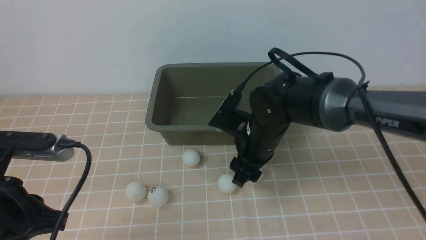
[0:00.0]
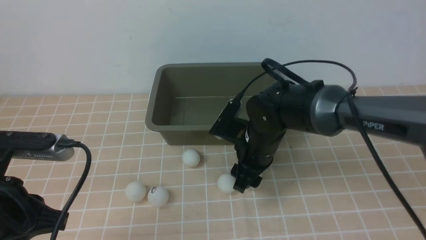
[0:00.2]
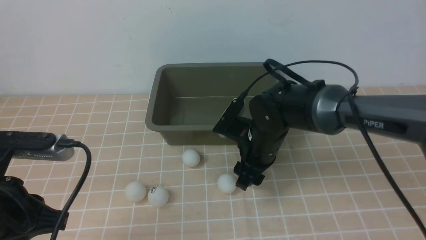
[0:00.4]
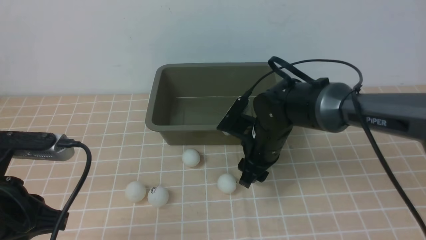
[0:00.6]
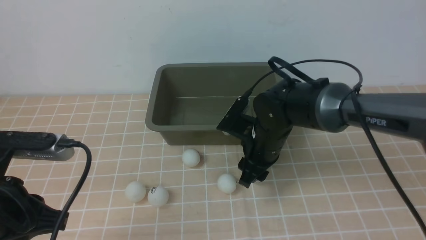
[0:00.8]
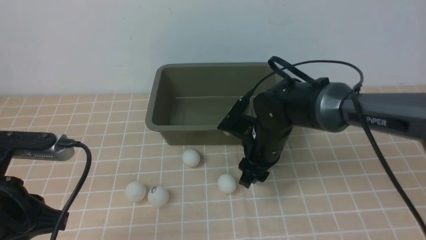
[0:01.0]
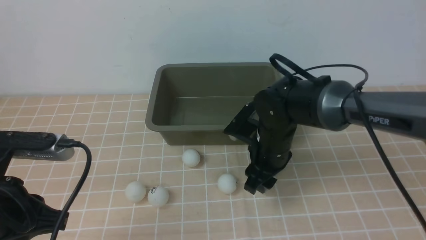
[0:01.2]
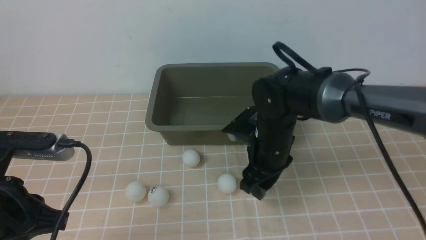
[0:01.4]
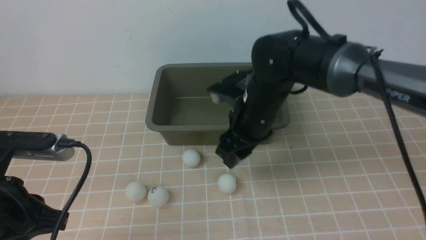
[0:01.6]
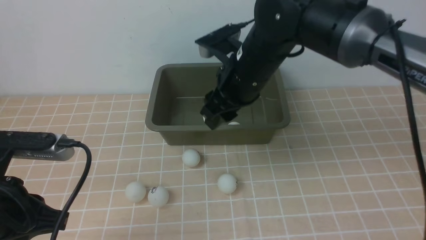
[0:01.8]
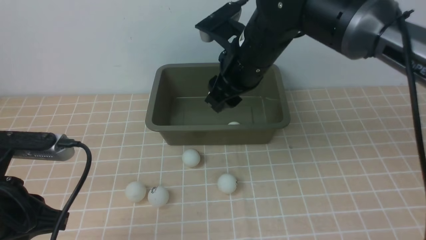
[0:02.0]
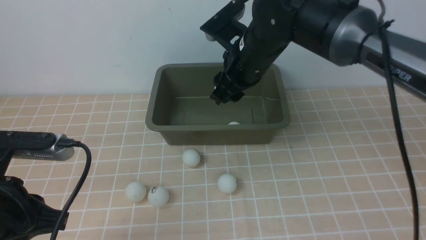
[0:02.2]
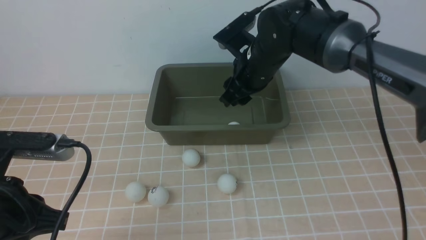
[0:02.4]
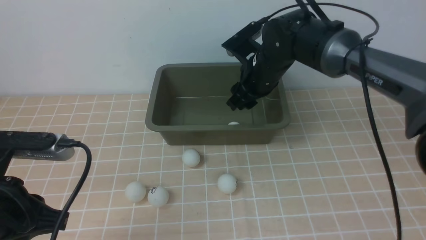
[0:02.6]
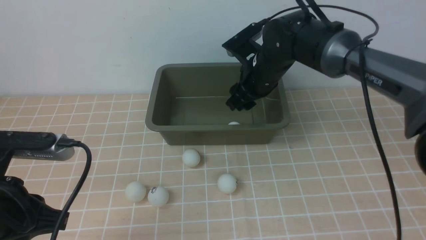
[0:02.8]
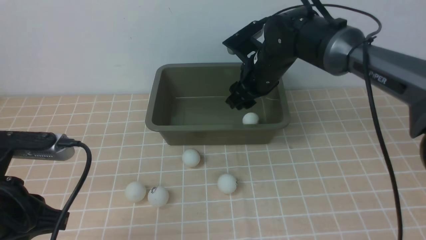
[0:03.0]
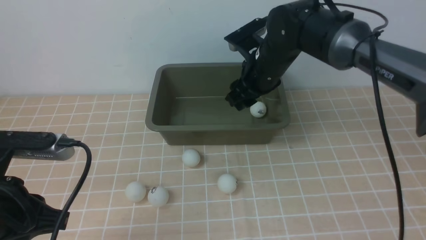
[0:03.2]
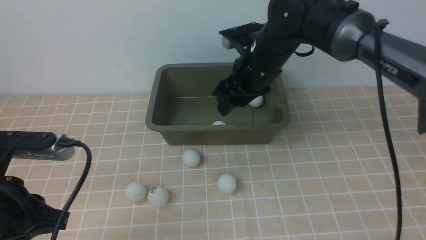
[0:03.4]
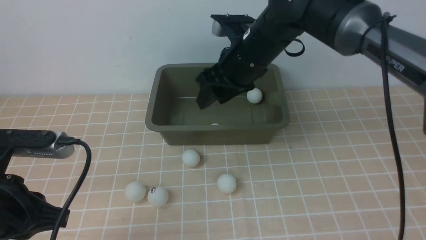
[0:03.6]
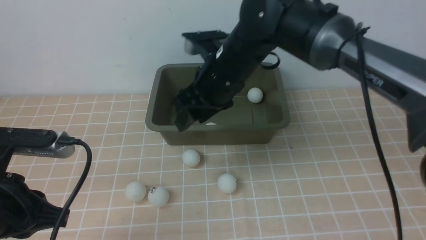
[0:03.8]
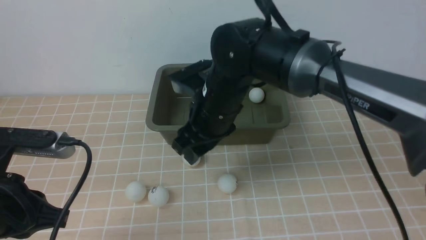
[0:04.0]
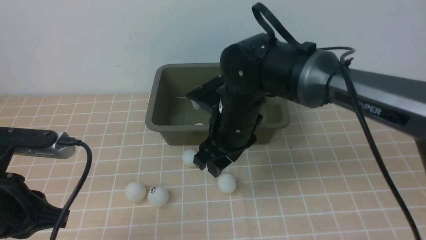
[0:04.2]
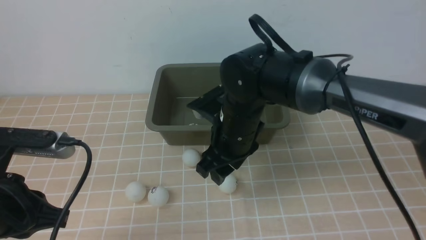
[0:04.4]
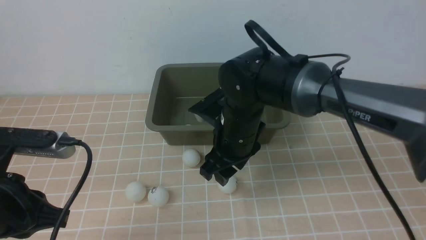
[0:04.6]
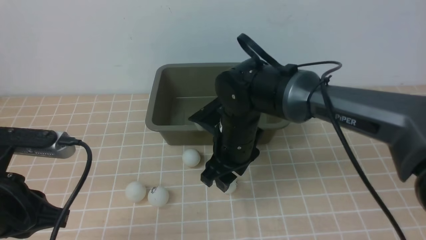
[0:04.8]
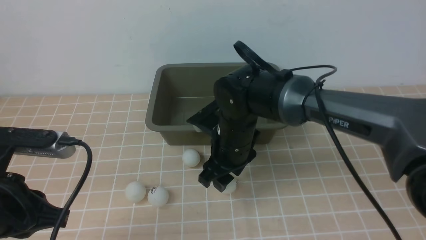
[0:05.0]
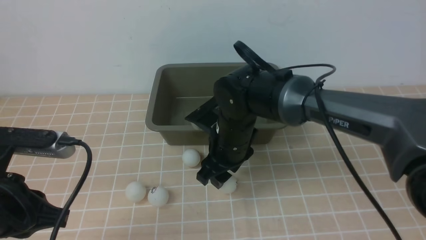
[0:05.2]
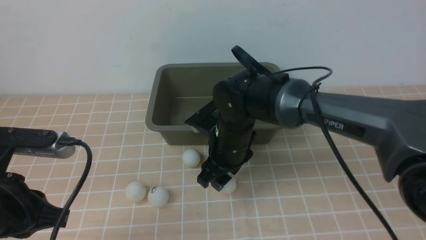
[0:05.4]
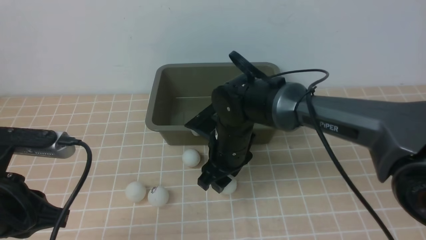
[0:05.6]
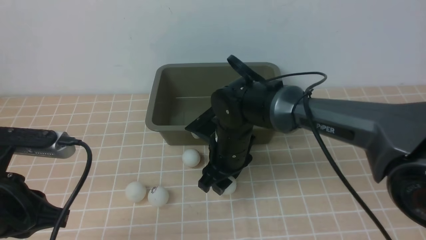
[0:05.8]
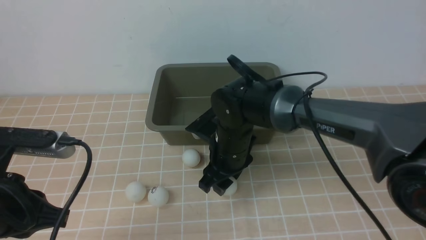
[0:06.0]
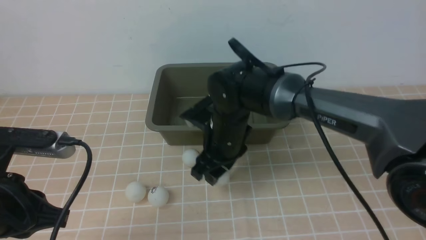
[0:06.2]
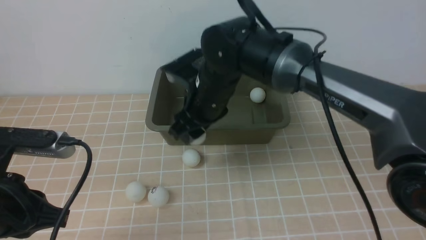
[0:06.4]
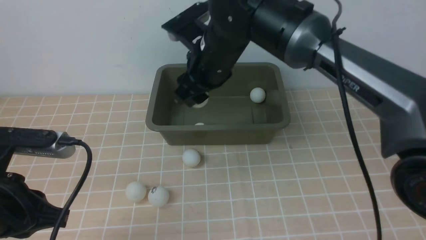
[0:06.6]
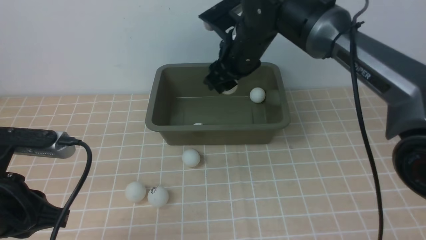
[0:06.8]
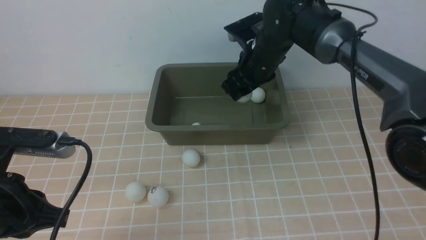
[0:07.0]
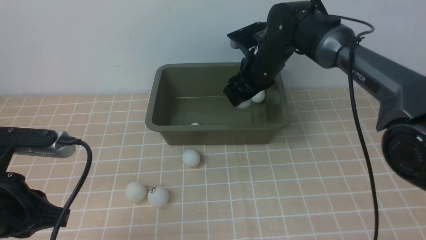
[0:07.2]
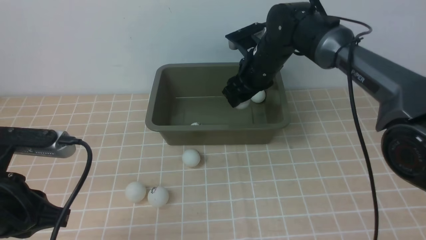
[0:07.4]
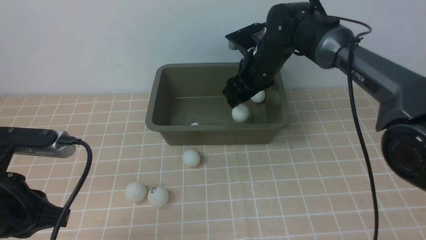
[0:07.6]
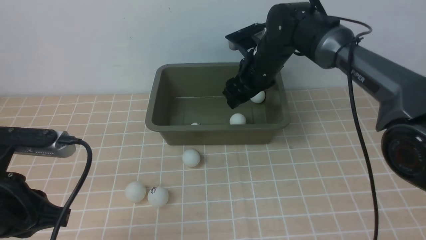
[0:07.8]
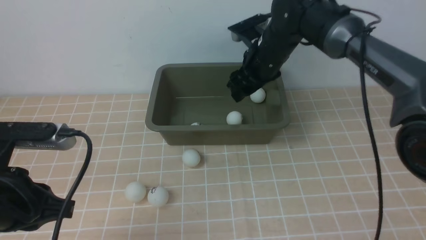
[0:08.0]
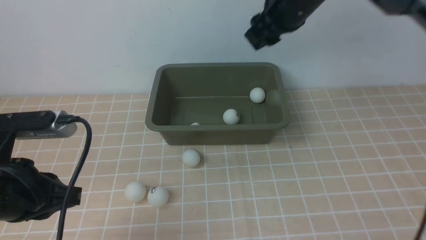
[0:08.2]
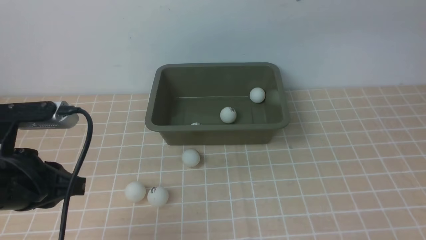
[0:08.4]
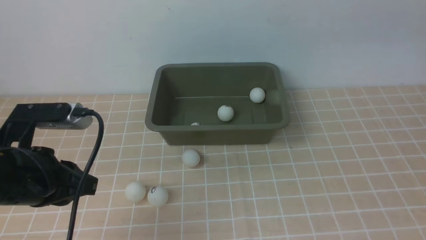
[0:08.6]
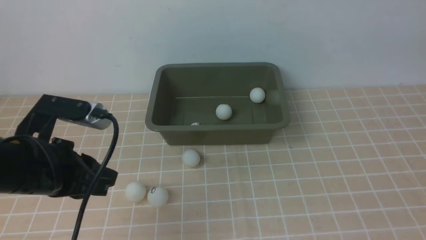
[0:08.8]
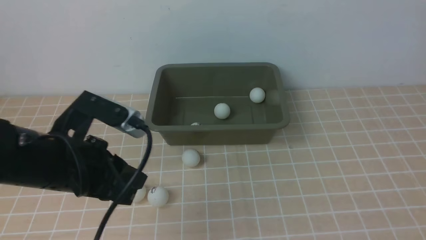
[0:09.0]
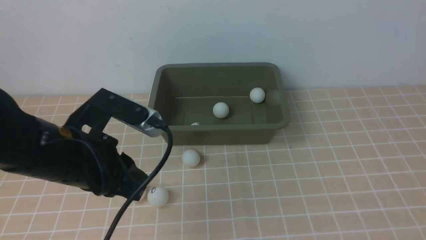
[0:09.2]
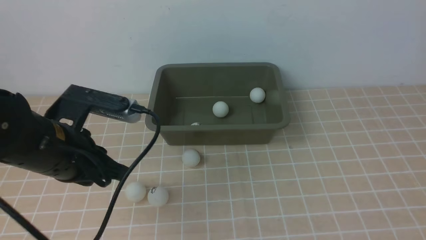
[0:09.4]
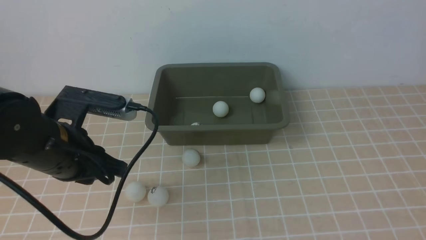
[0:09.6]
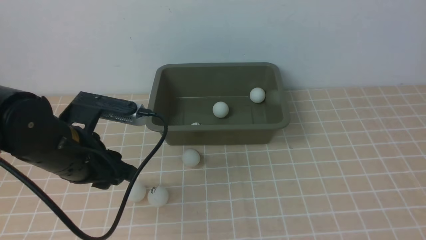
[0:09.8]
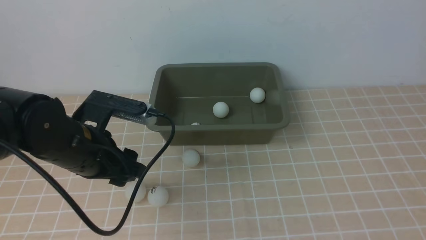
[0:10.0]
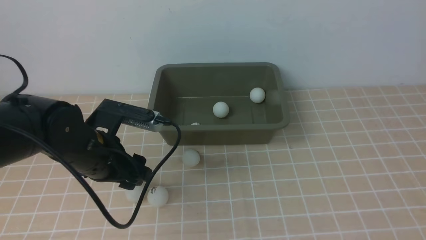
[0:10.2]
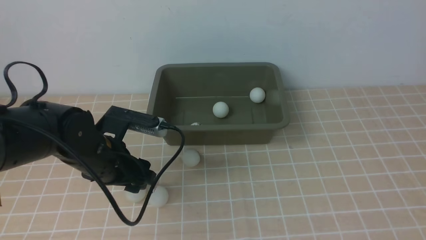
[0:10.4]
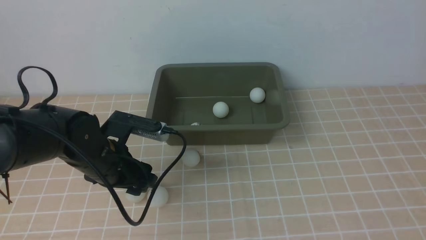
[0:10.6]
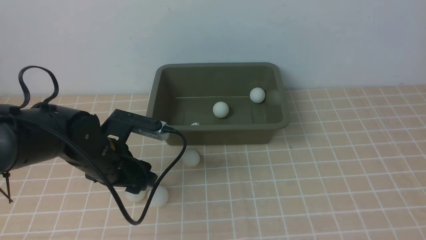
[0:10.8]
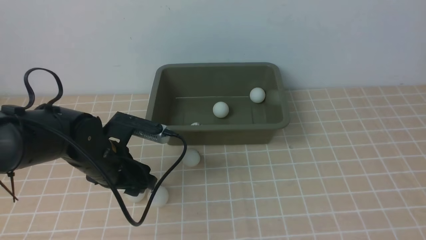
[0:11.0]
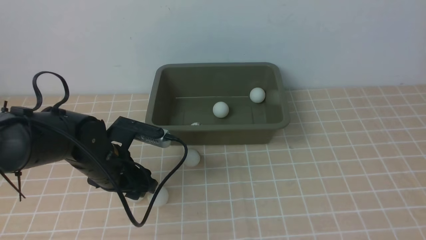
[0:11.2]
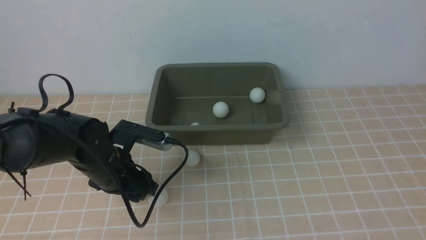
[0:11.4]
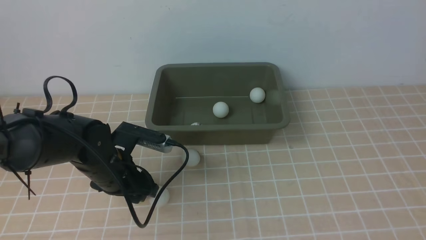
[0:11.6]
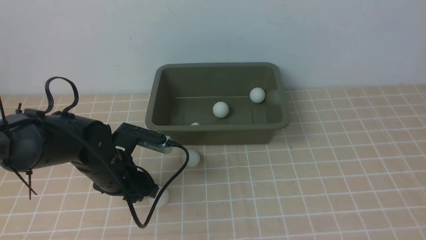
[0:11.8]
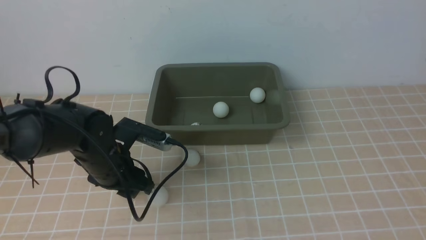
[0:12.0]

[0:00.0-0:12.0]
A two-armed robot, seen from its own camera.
Step, 0:01.6 to 0:03.6: use the right arm to put the table tennis ball into the box.
Step, 0:03.8 to 0:06.4: use the right arm to clamp the table tennis ball closest to it.
Step, 0:06.6 to 0:07.8: use the right arm to put the table tennis ball into the box.
0:00.0 to 0:01.6: The grippers move only a little.
0:01.6 to 0:03.0: The right gripper goes roughly 10 cm forward.
0:03.0 to 0:04.4: The right gripper heads backward and to the left, covering some 10 cm.
0:04.4 to 0:06.0: The right gripper travels downward by approximately 5 cm.
0:06.0 to 0:07.6: The right gripper is displaced forward, to the right and upward by approximately 15 cm.
0:07.6 to 0:09.0: The right gripper moves backward, upward and to the right, roughly 40 cm, and closes, while the left gripper moves to the right, approximately 5 cm.
0:09.0 to 0:10.4: The left gripper shifts about 10 cm forward and downward, and opens up.
0:10.4 to 0:12.0: The grippers move only a little.

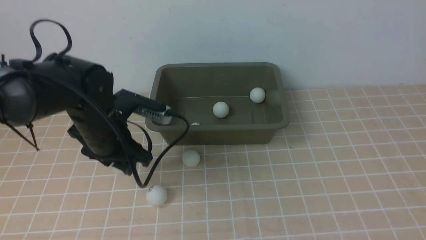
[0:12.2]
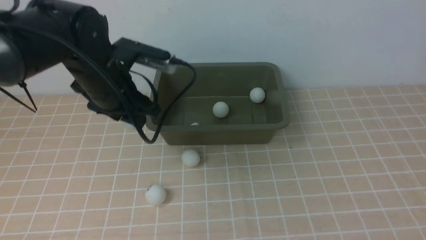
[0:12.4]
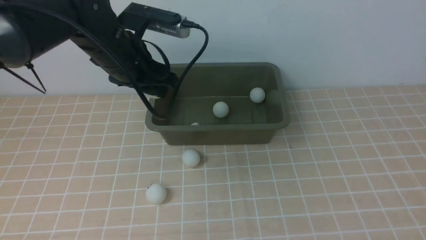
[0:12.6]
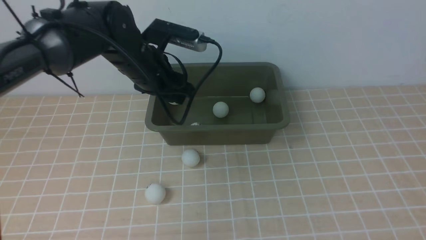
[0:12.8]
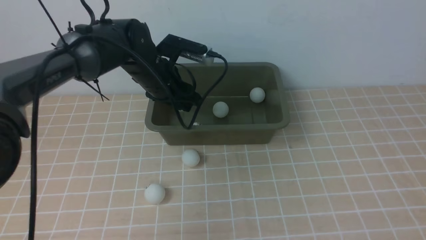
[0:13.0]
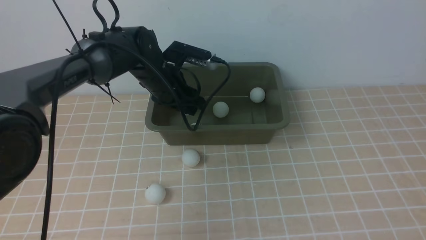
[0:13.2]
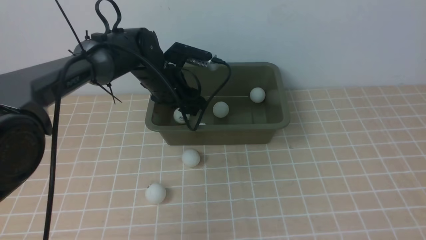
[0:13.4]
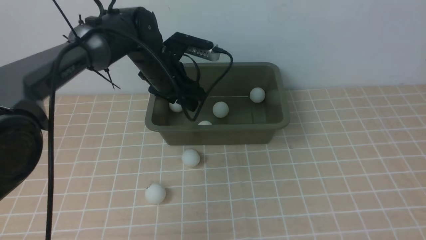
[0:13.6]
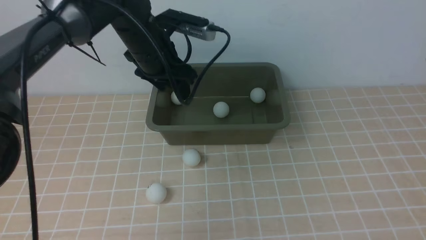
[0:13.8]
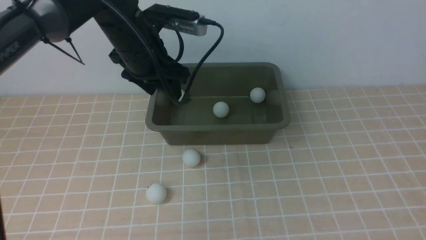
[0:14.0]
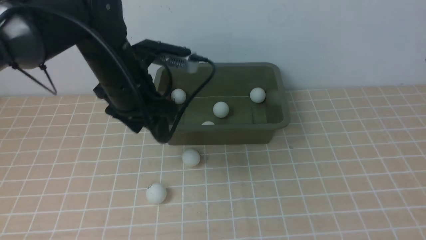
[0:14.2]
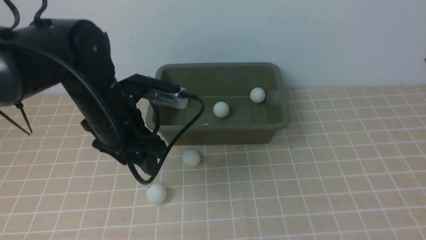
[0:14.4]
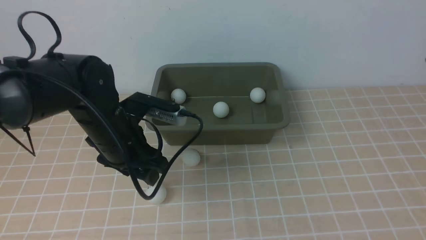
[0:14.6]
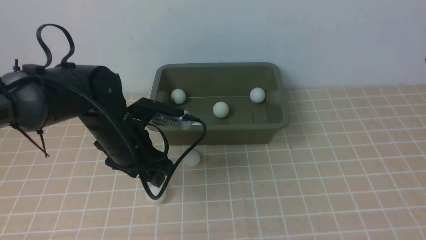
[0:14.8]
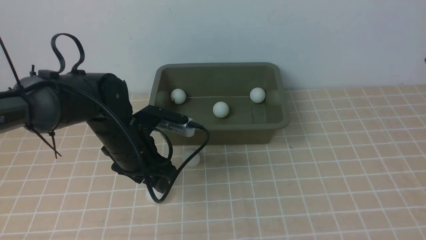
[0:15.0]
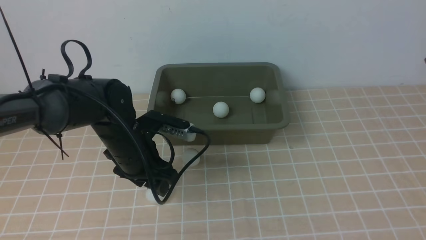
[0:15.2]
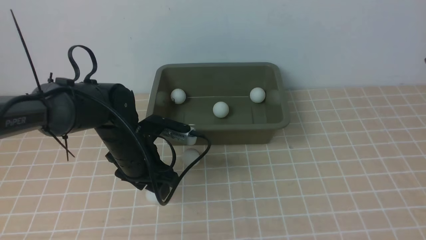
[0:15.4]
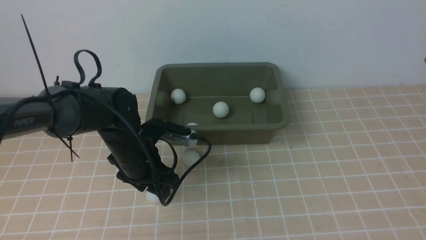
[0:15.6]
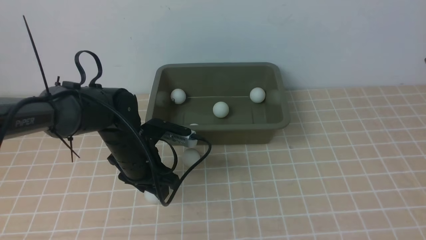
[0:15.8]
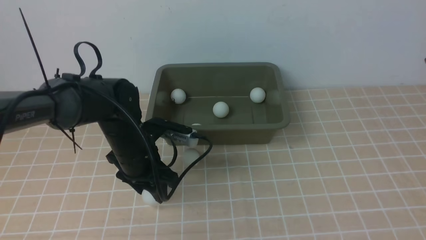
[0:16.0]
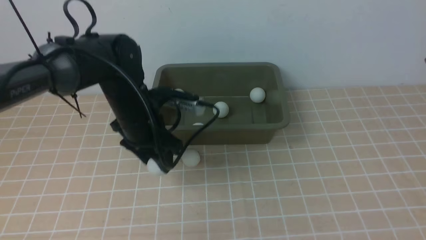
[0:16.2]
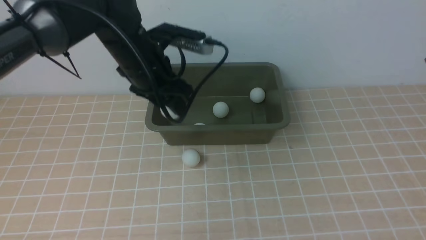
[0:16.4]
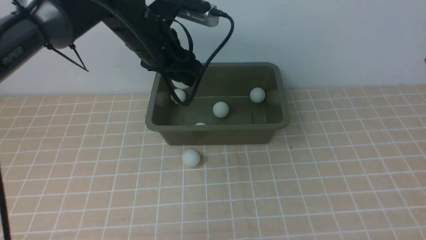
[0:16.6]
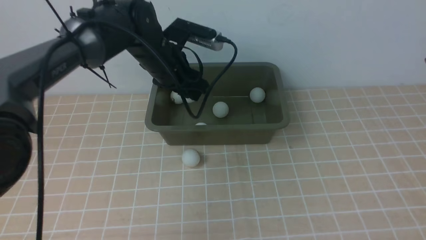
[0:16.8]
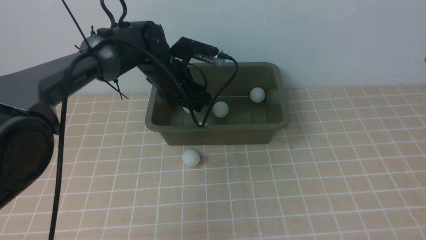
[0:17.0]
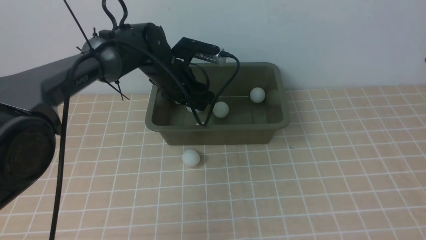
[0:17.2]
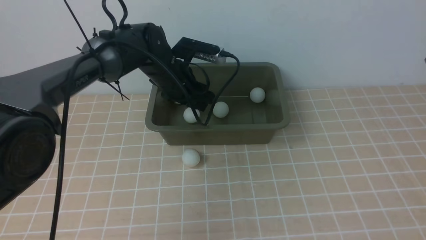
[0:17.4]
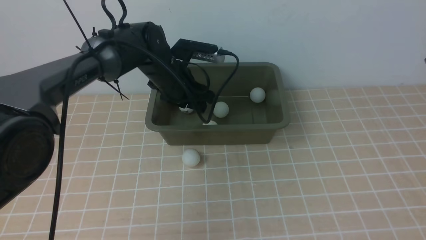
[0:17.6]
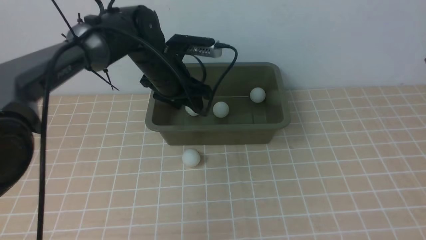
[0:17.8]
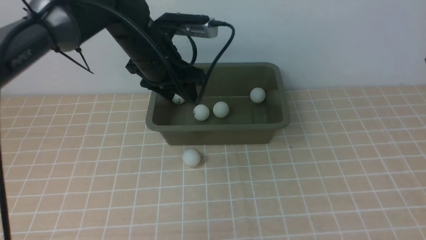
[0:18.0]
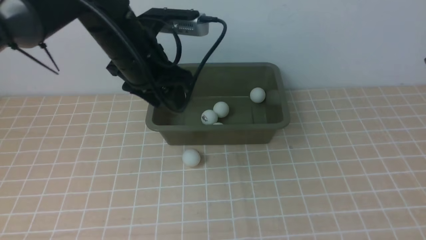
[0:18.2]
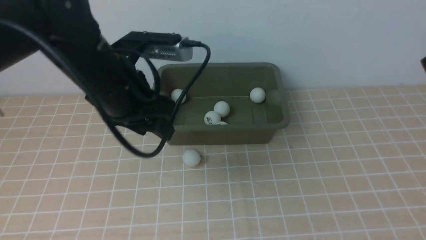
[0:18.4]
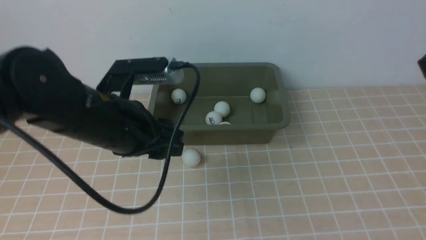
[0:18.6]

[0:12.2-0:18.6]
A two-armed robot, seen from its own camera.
Step, 0:12.6 to 0:14.0: use the left arm to put the table tennis ball into the box.
Step, 0:14.2 to 0:16.4: use the left arm to clamp the table tennis ball closest to it.
Step, 0:16.6 to 0:17.8: use the left arm to put the table tennis ball into the box.
0:12.2 to 0:13.8: The left gripper goes roughly 15 cm forward, upward and to the right.
0:13.8 to 0:15.4: The left gripper heads backward and downward, covering approximately 15 cm.
0:15.4 to 0:17.0: The left gripper moves forward and upward, roughly 15 cm.
0:17.0 to 0:18.6: The left gripper is displaced backward by some 15 cm.
